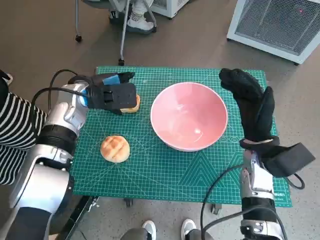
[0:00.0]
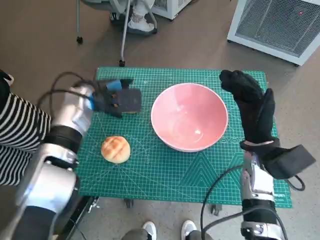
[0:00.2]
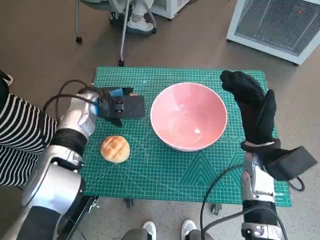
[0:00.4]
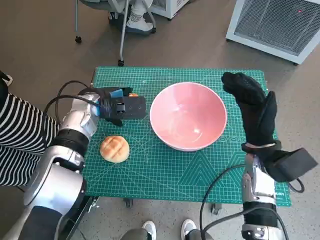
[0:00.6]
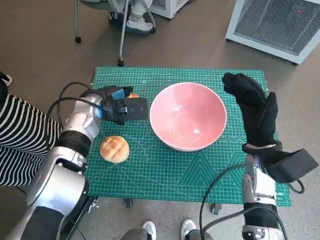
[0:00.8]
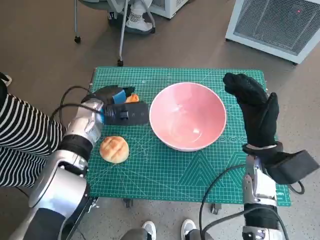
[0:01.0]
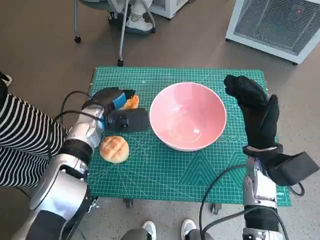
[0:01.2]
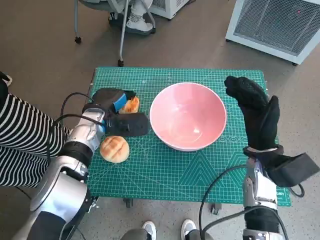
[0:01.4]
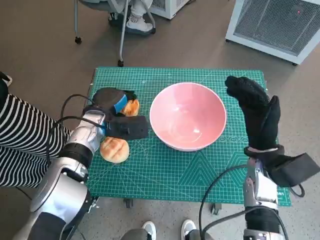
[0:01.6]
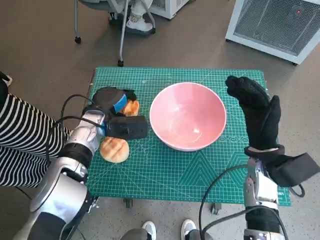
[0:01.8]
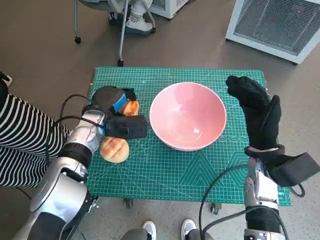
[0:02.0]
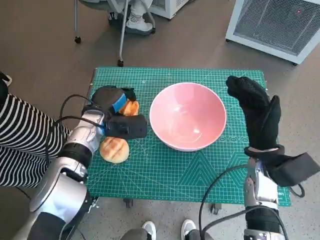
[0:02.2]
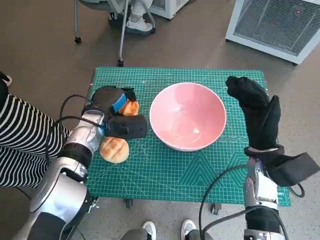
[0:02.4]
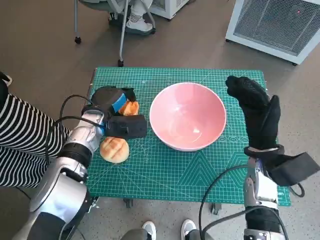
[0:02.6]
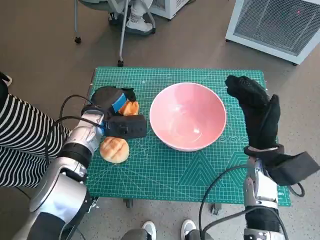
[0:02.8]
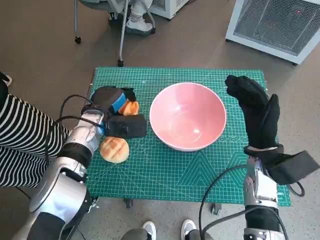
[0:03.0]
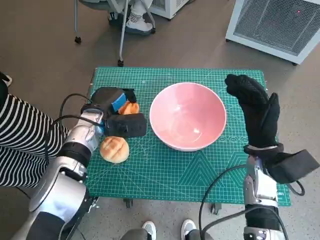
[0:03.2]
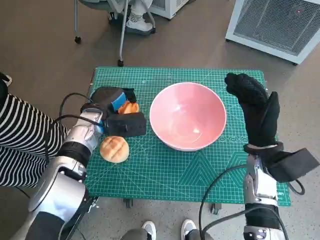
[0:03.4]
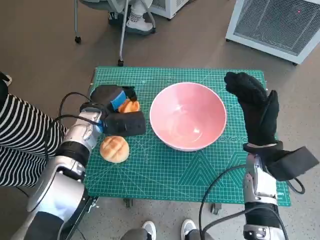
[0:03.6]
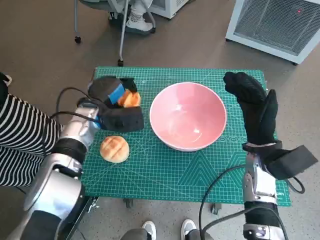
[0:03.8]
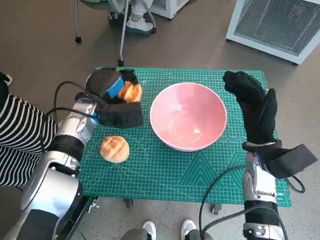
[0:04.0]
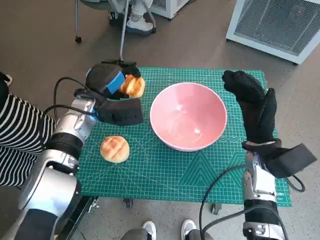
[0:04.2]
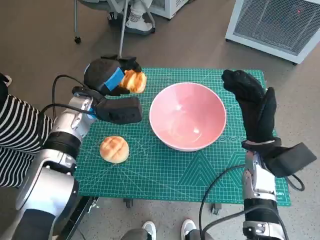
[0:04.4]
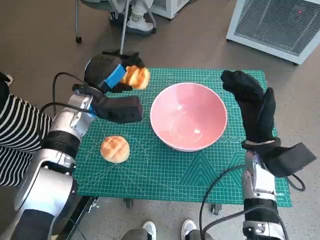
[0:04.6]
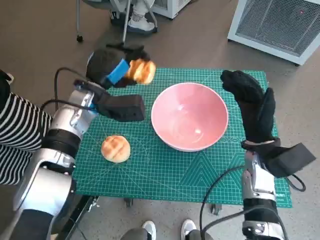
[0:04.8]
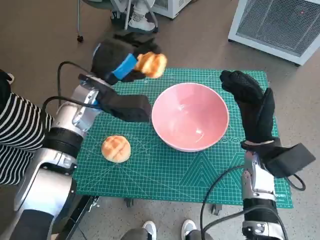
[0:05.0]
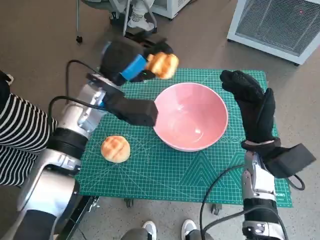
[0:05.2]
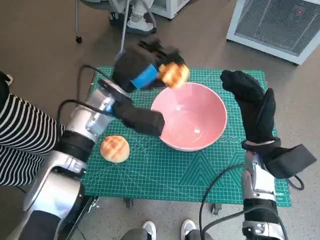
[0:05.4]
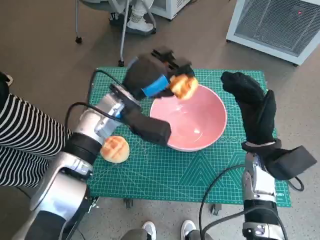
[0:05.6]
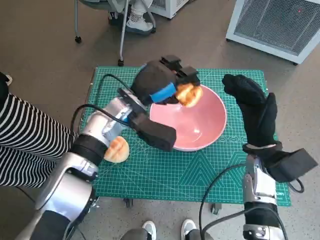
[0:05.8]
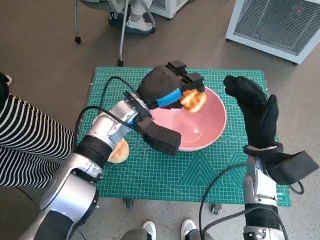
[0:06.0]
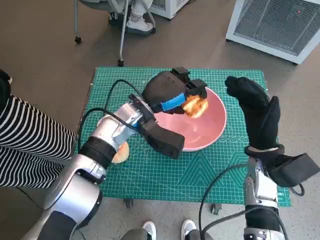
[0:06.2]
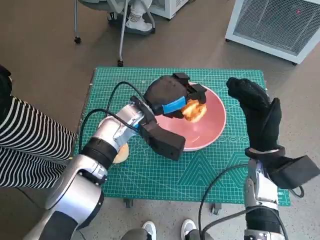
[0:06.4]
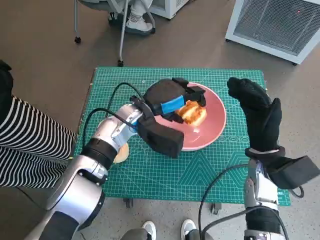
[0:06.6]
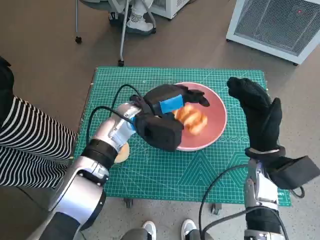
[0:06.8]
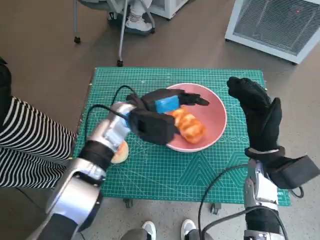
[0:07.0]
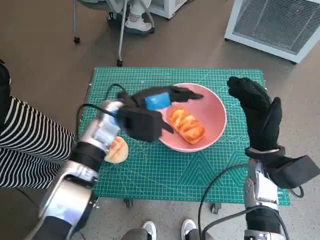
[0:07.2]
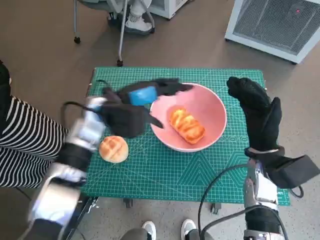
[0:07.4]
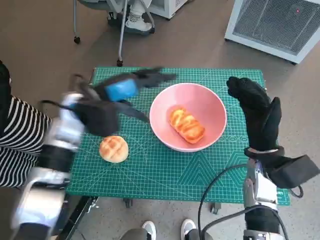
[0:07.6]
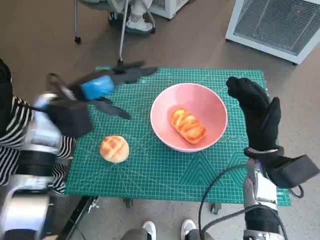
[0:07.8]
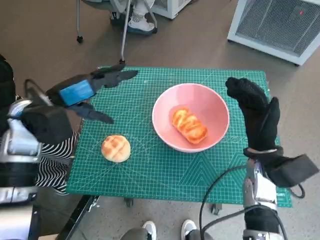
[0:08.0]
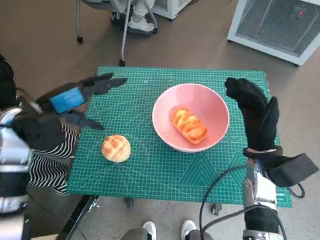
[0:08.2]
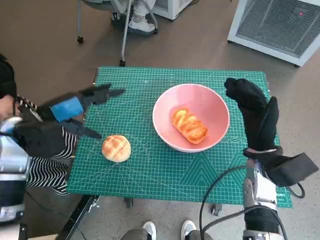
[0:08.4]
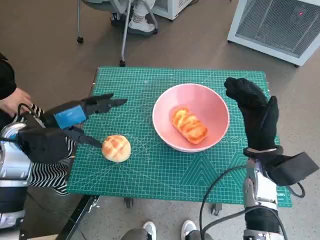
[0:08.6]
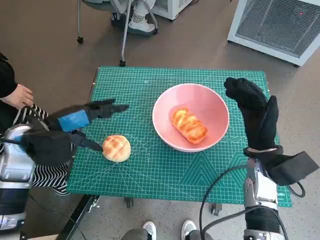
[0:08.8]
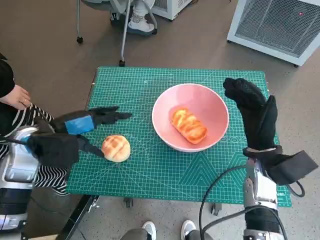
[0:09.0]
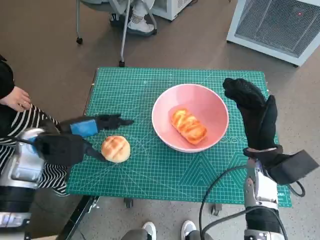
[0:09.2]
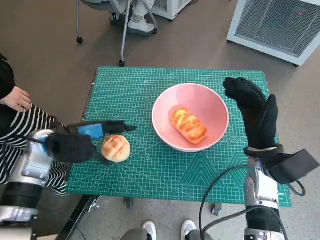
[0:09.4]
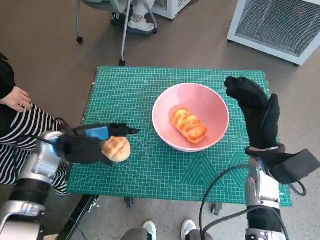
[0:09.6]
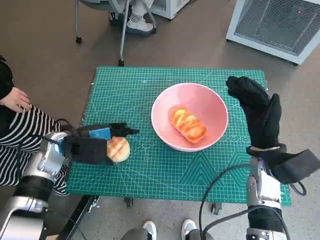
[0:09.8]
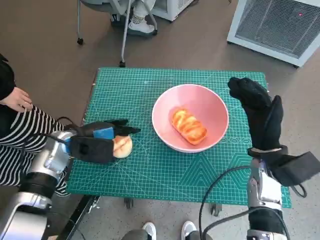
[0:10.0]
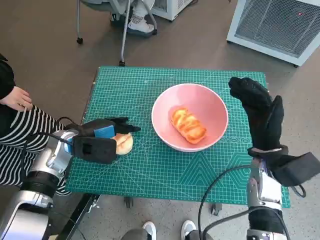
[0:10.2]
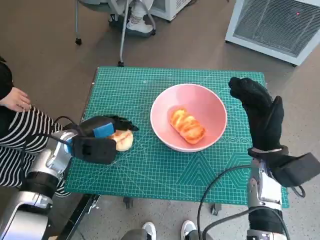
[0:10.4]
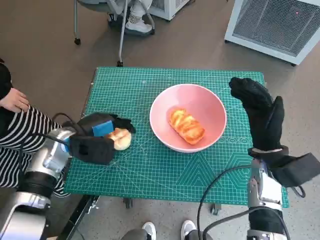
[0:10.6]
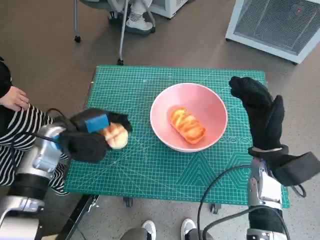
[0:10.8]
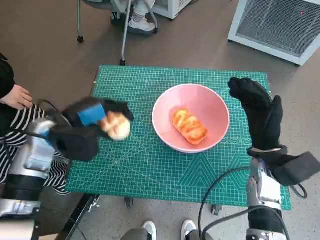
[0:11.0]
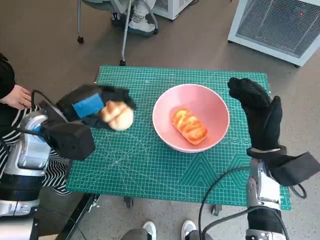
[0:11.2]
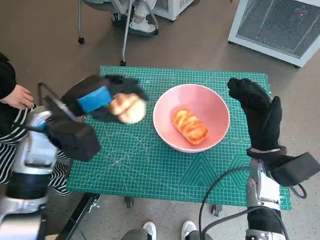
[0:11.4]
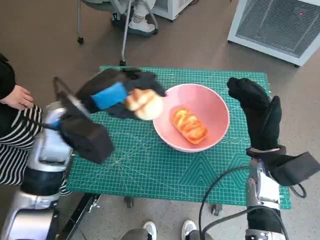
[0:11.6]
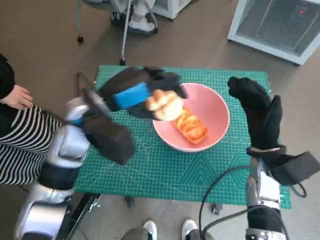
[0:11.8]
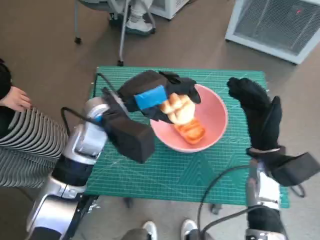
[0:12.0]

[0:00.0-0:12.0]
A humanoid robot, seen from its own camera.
Task of the whole recording: Push the bowl into the center of the table and put the bread into the bowl.
Step, 0:02.0 to 0:07.2: Place the long bread in pink bowl with left hand.
Step, 0:07.6 to 0:10.6: Grasp the round bread with left hand.
0:00.0 to 0:01.6: The left hand heads downward, covering about 10 cm.
0:01.6 to 0:03.0: Both hands stay about where they are.
0:03.0 to 0:04.4: The left hand moves about 5 cm.
0:04.4 to 0:06.0: The left hand shifts some 10 cm to the right.
0:06.0 to 0:07.6: The left hand is displaced to the left by about 10 cm.
0:07.6 to 0:09.0: The left hand goes approximately 10 cm to the left and backward.
0:09.0 to 0:10.4: The left hand moves downward, about 5 cm.
0:10.4 to 0:12.0: The left hand moves to the right and upward, approximately 15 cm.

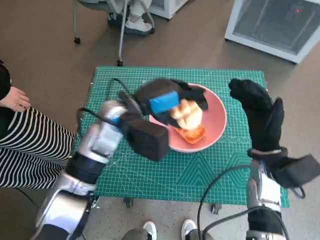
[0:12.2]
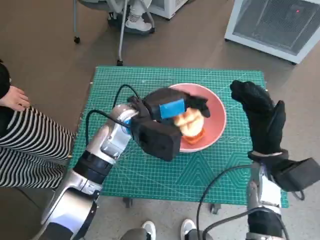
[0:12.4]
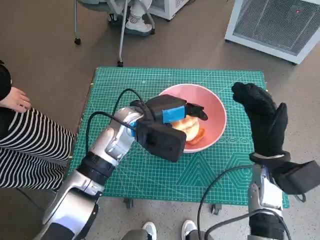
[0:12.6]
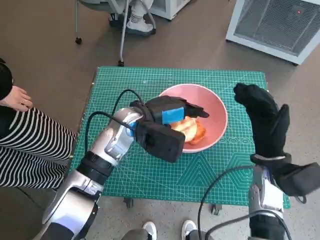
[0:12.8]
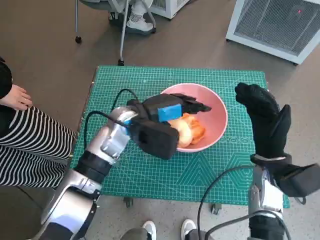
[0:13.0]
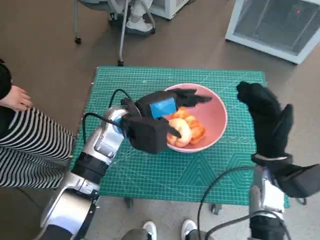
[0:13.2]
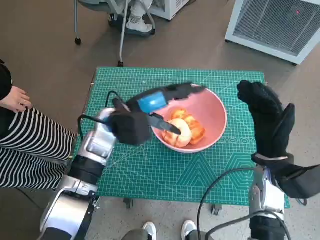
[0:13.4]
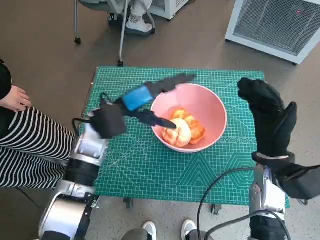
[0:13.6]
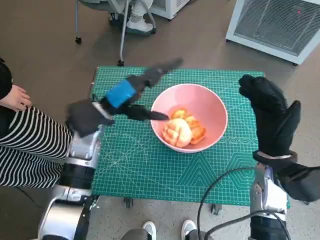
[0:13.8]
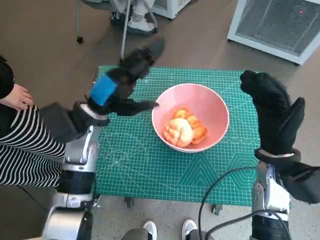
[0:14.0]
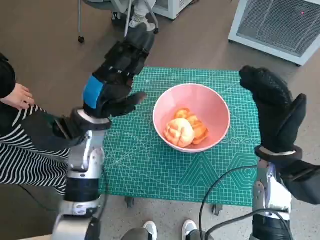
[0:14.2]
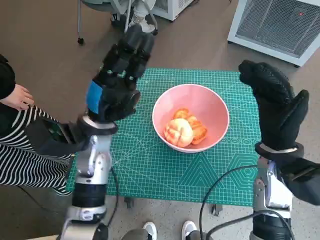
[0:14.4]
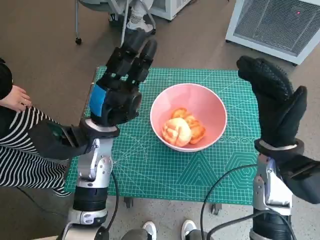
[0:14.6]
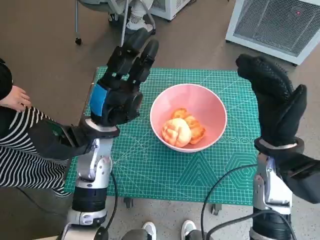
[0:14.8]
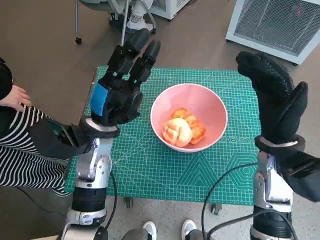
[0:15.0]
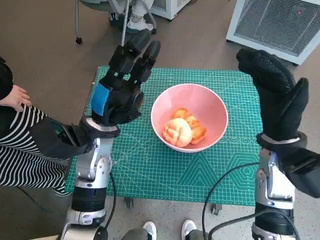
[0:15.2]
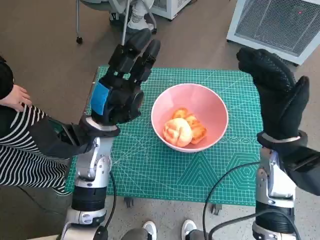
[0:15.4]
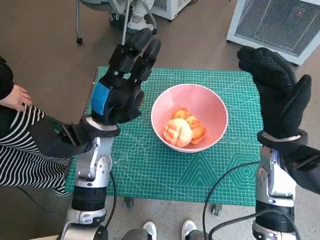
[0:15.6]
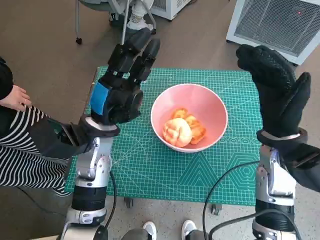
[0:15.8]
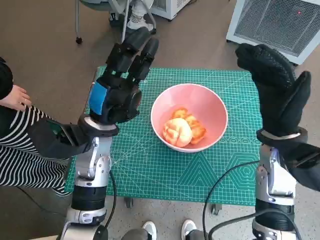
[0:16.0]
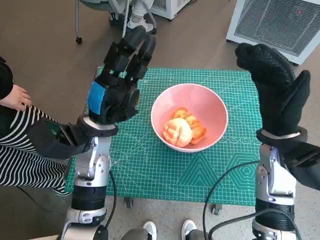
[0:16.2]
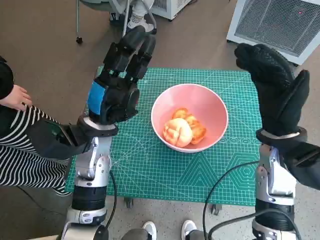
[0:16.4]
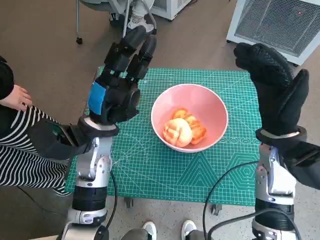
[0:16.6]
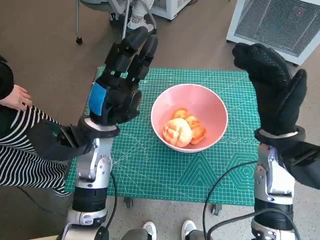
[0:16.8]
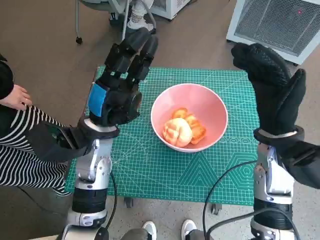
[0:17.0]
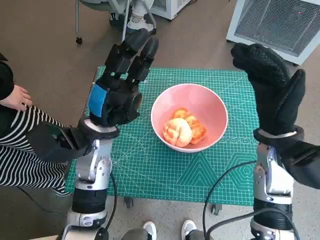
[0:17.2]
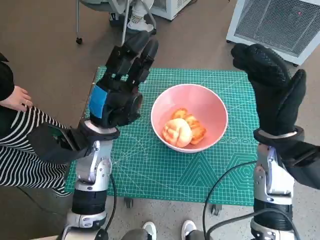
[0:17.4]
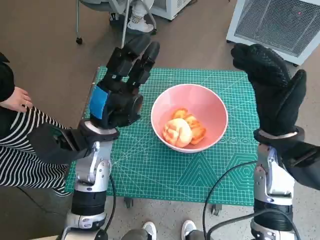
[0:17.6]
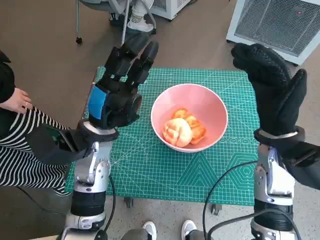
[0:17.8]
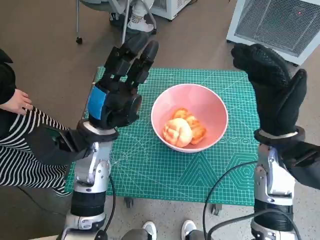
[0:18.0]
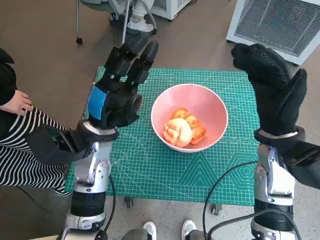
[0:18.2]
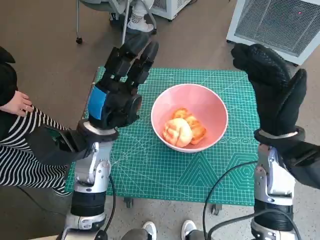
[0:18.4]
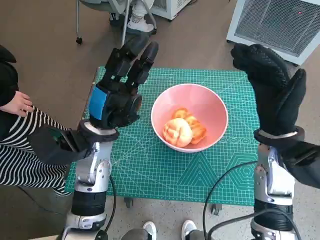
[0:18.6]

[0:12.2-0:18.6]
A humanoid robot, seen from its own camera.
Task of the whole recording: Push the bowl into the center of the table and put the bread into the bowl.
Step, 0:12.2 to 0:13.8: Place the round bread in pink bowl with left hand.
0:12.2 to 0:13.8: The left hand moves to the left, some 5 cm.
0:15.4 to 0:18.6: Neither hand changes place.
